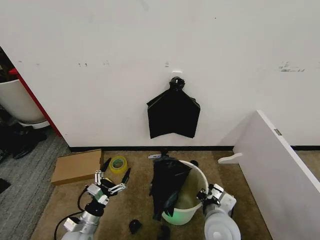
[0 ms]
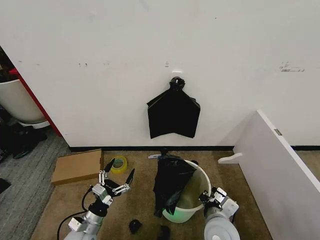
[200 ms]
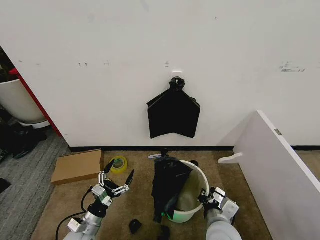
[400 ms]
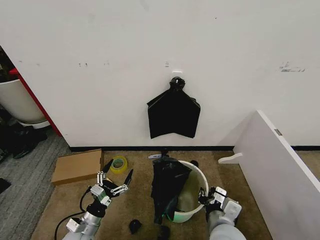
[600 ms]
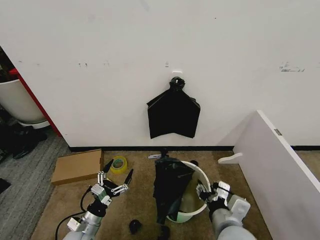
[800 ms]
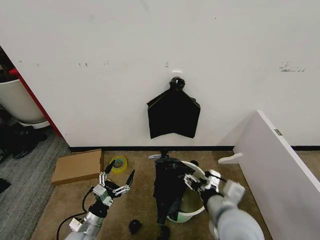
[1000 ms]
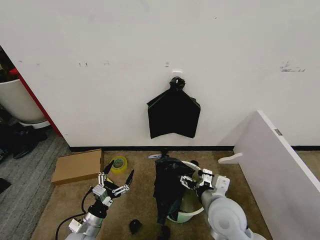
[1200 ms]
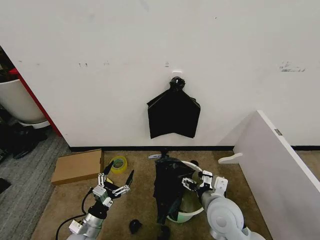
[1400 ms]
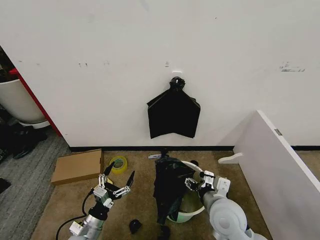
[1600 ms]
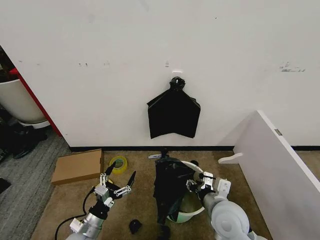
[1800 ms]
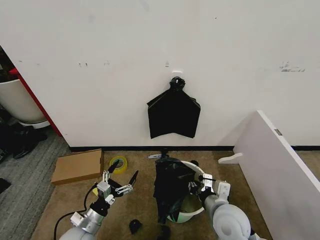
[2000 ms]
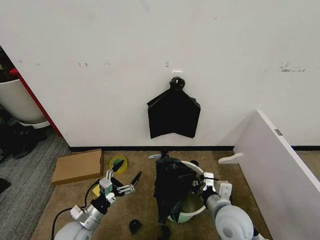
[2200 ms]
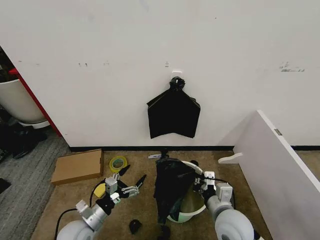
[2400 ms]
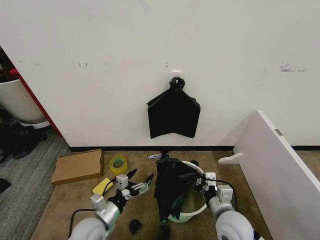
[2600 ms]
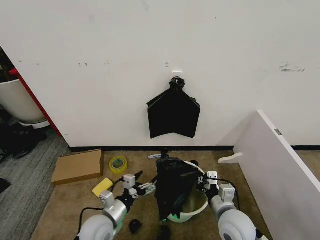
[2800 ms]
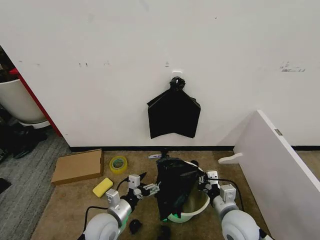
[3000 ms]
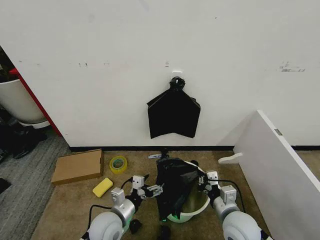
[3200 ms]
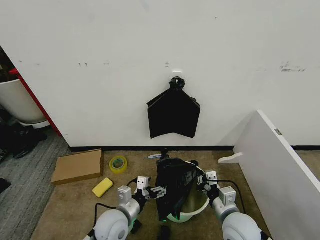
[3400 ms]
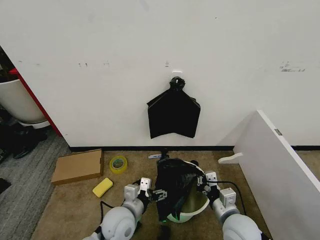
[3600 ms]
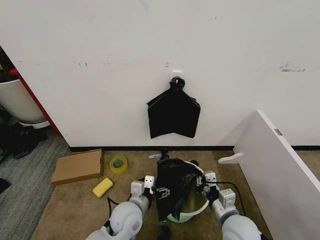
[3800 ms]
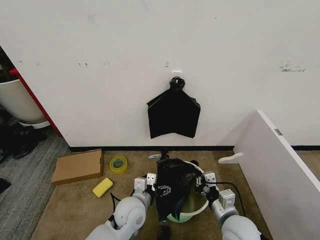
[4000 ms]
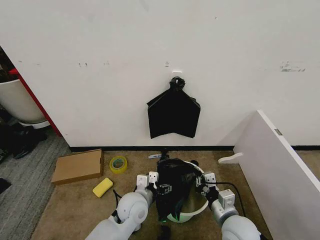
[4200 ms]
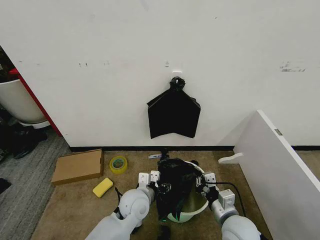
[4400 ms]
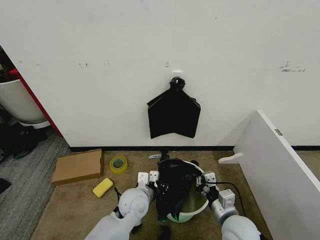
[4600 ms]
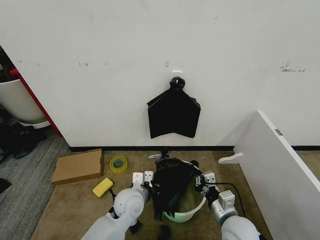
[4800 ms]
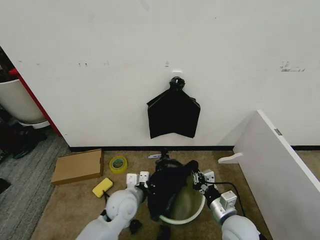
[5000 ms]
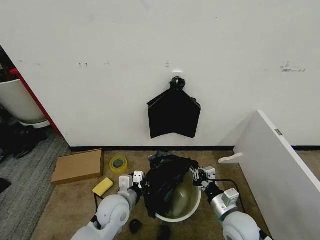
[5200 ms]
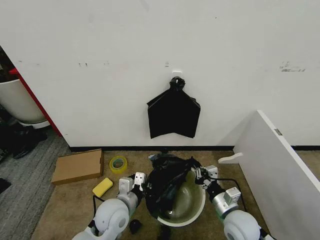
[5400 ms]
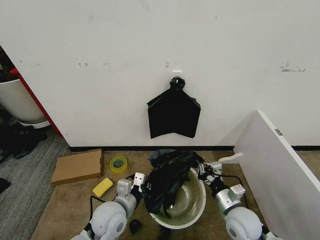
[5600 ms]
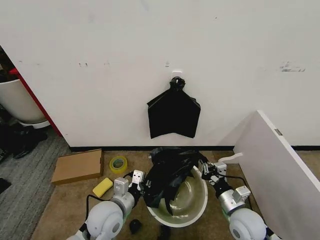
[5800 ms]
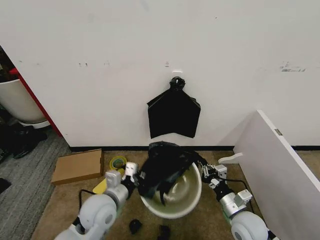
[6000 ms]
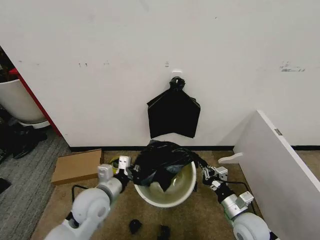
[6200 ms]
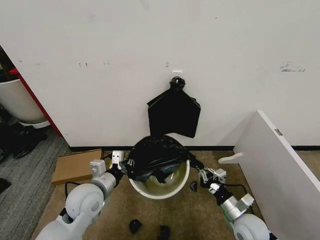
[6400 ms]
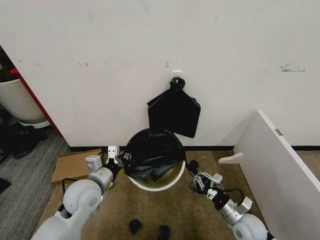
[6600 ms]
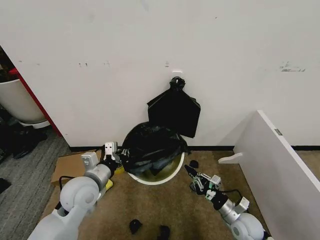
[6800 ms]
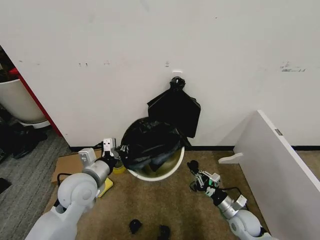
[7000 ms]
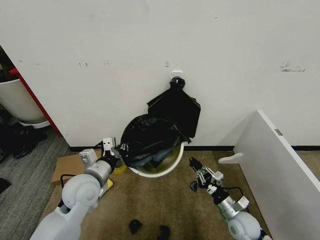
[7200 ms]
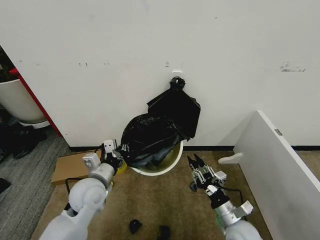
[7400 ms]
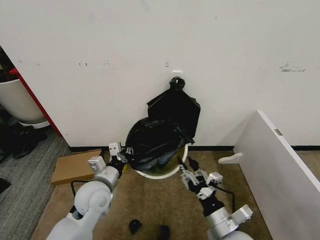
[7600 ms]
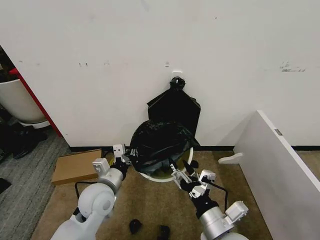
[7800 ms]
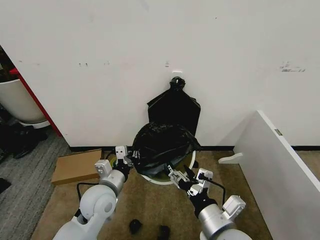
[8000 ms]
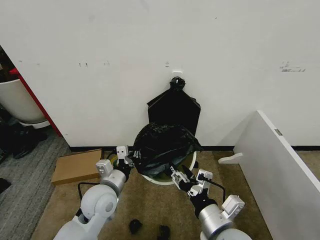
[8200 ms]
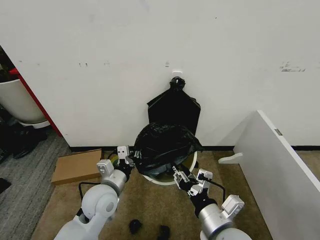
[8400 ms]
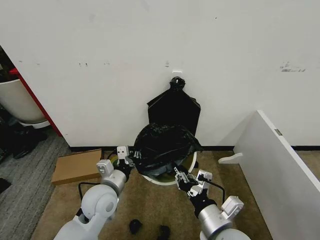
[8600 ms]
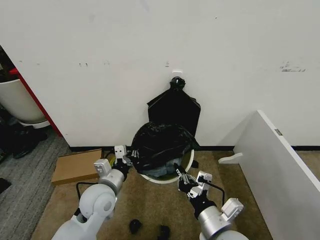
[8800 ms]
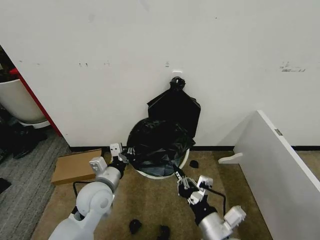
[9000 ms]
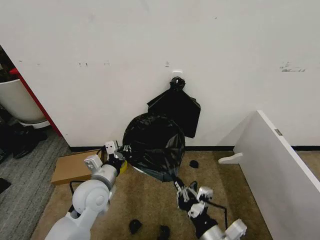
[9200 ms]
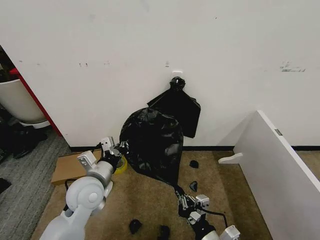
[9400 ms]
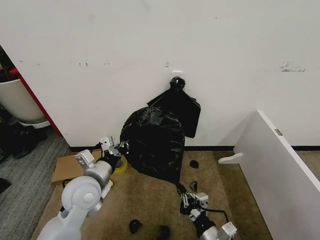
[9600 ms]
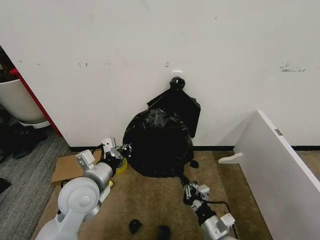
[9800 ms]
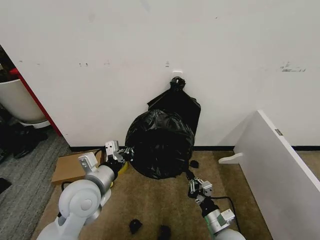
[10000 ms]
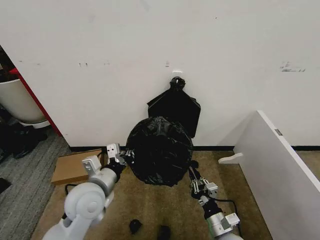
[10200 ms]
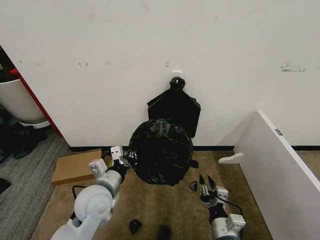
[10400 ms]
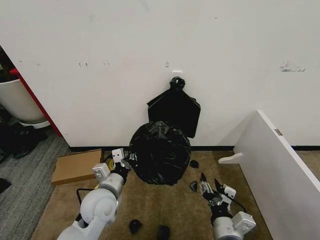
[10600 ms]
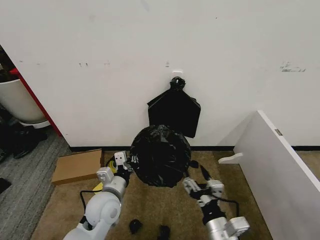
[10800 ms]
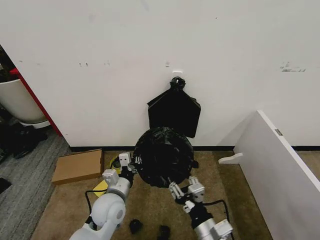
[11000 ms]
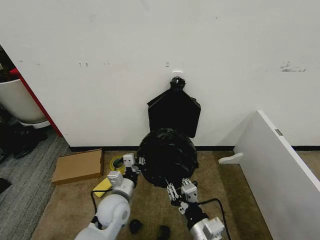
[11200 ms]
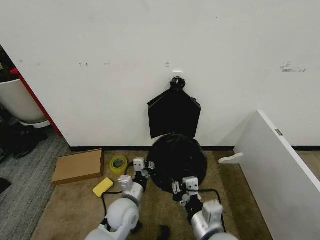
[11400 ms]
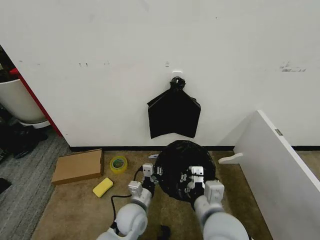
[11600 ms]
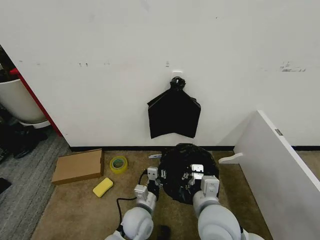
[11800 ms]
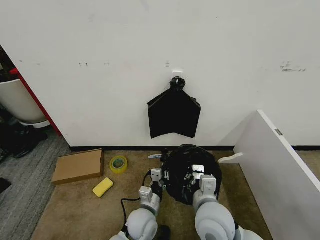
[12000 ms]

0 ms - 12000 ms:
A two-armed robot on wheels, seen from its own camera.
Task of the whole recording: Place the garbage bag over the trash bin.
0 ms - 1600 ms: The right gripper opens its fingers.
1600 ms - 3000 ms: The right gripper changes place by roughly 5 cm, and closes, while the left gripper heads to the right and upward, covering approximately 10 cm.
3000 ms - 4400 ms: The left gripper moves to the right and forward, approximately 10 cm, and closes its fingers.
4400 ms - 6000 ms: The left gripper moves to the left and upward, roughly 10 cm, and closes its fingers, while the right gripper changes place by approximately 5 cm.
6000 ms - 7600 ms: The left gripper moves approximately 5 cm; the right gripper travels downward and back again, about 10 cm each way, and opens.
7600 ms - 9000 ms: The right gripper goes approximately 15 cm upward, to the left and backward, and closes up.
9000 ms - 10400 ms: The right gripper heads downward, covering approximately 10 cm.
10400 ms - 12000 ms: The left gripper is displaced downward and to the right by about 20 cm, while the right gripper is displaced upward, to the left and forward by about 15 cm, and opens and closes again.

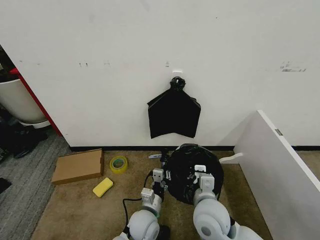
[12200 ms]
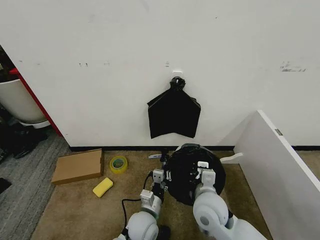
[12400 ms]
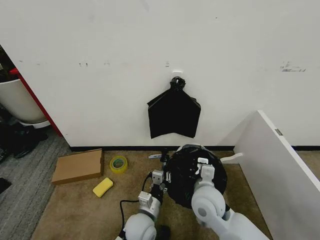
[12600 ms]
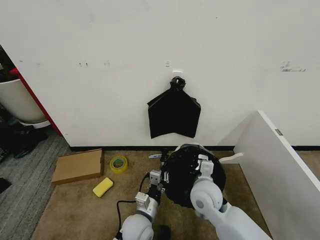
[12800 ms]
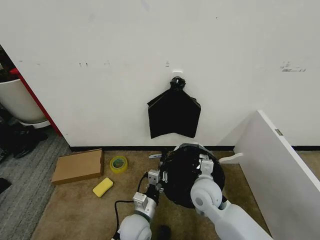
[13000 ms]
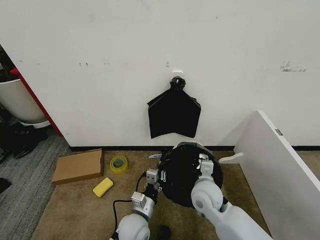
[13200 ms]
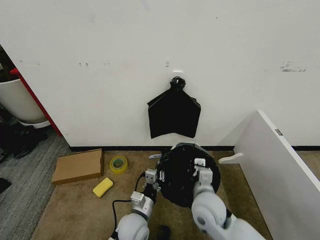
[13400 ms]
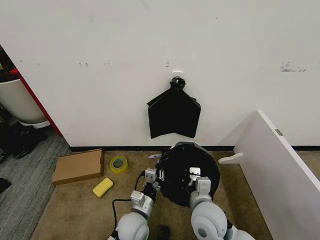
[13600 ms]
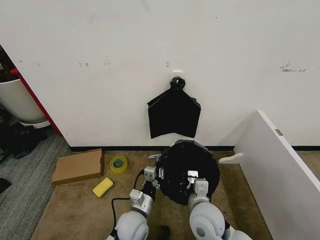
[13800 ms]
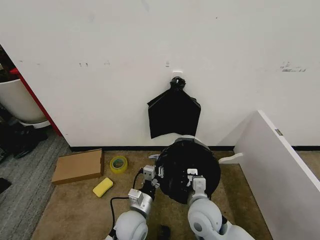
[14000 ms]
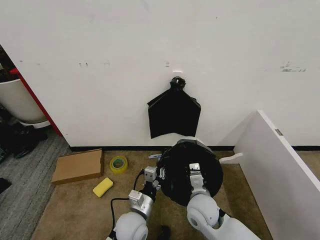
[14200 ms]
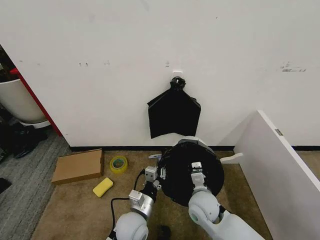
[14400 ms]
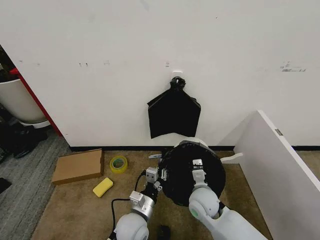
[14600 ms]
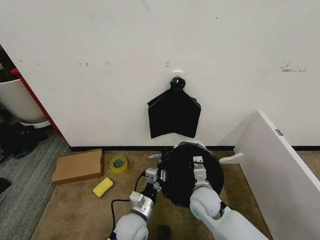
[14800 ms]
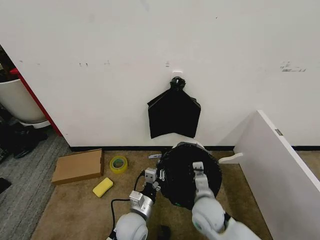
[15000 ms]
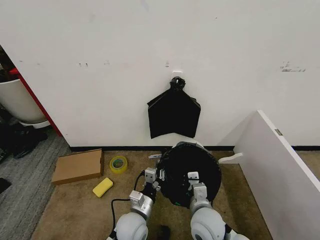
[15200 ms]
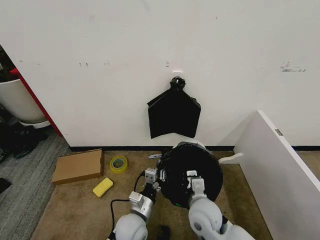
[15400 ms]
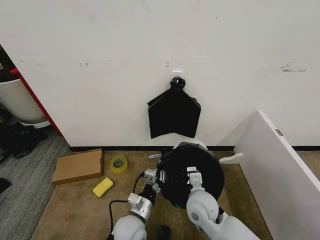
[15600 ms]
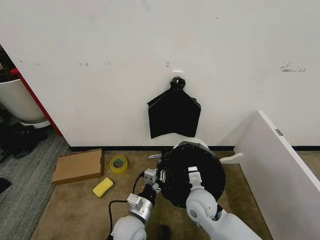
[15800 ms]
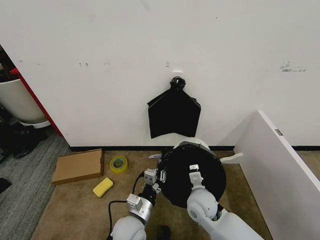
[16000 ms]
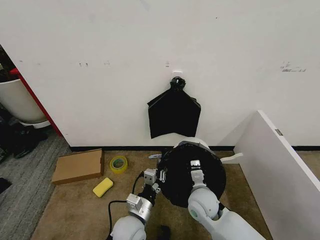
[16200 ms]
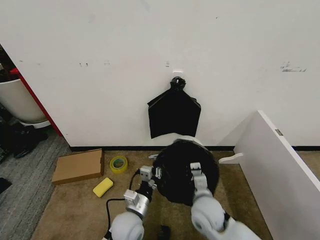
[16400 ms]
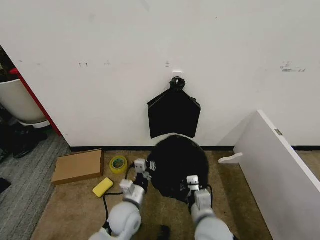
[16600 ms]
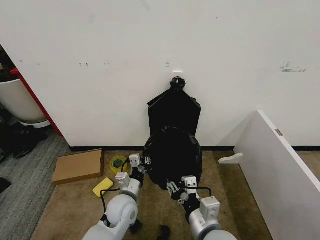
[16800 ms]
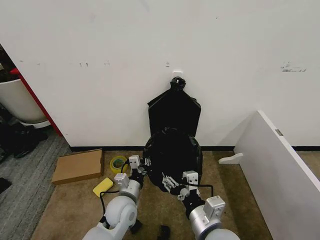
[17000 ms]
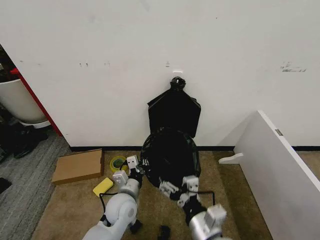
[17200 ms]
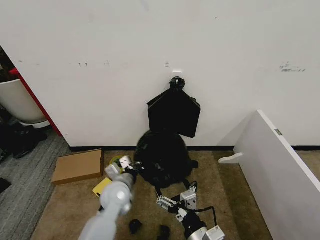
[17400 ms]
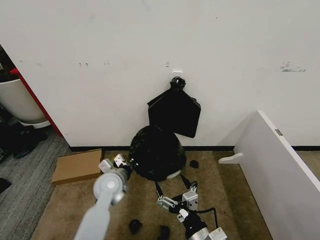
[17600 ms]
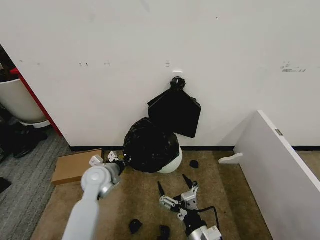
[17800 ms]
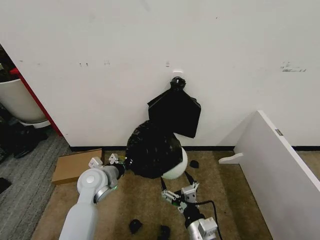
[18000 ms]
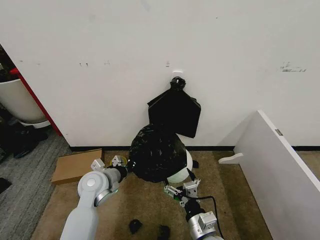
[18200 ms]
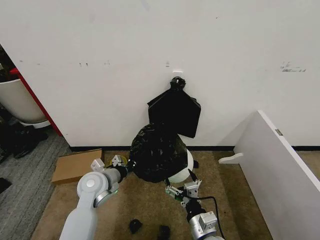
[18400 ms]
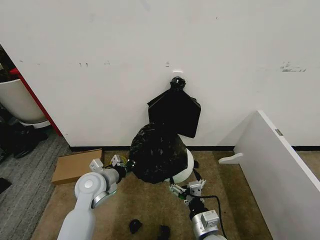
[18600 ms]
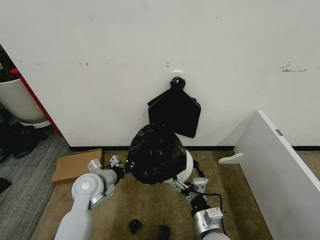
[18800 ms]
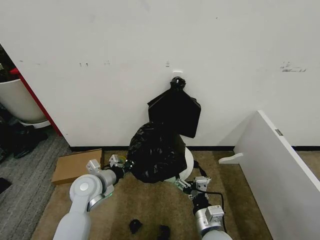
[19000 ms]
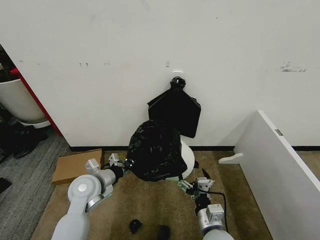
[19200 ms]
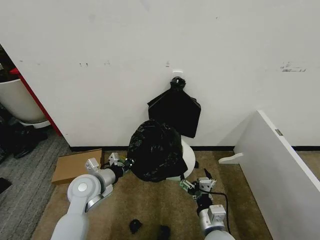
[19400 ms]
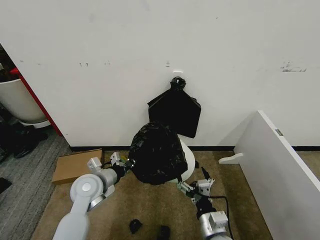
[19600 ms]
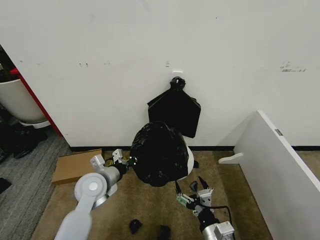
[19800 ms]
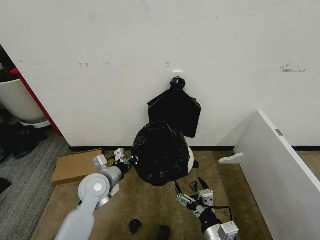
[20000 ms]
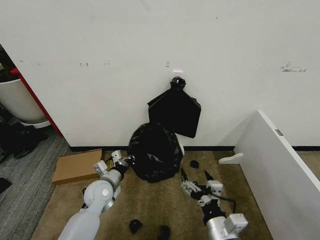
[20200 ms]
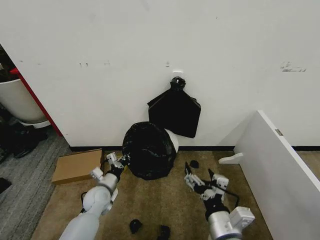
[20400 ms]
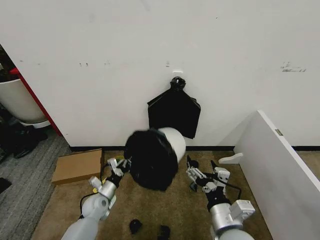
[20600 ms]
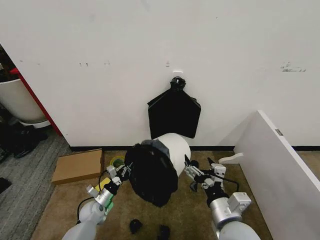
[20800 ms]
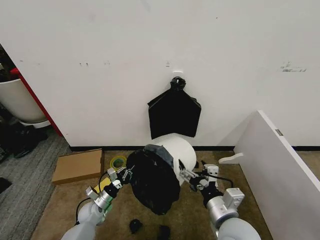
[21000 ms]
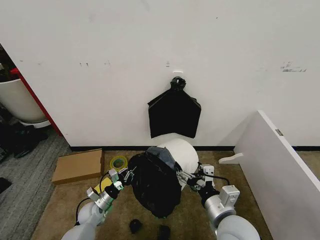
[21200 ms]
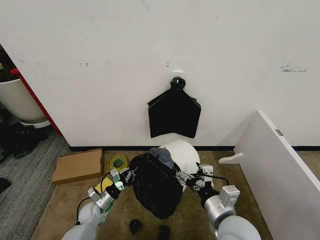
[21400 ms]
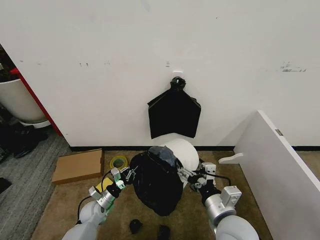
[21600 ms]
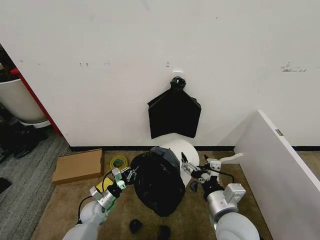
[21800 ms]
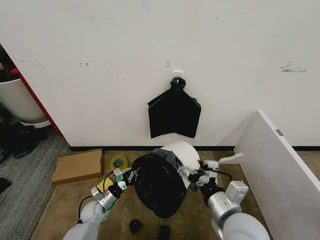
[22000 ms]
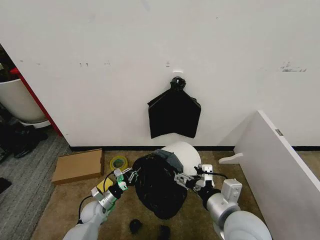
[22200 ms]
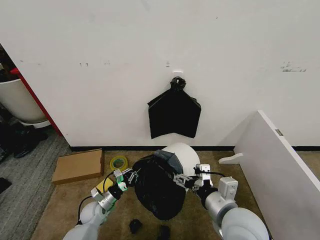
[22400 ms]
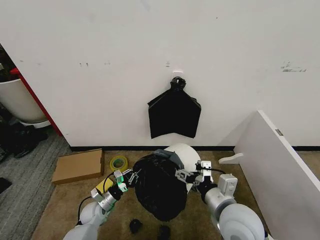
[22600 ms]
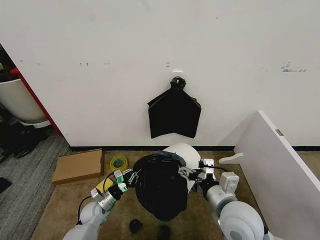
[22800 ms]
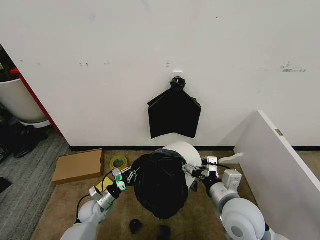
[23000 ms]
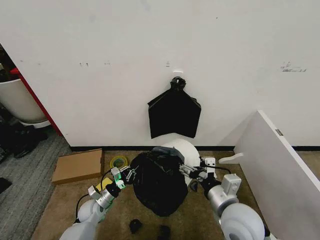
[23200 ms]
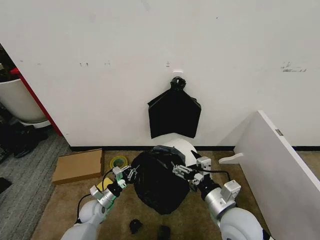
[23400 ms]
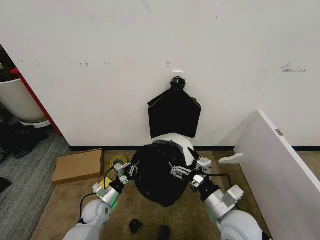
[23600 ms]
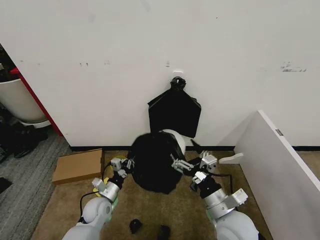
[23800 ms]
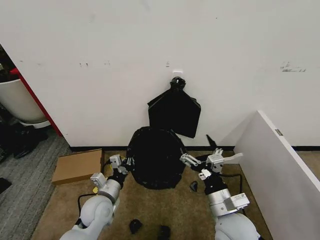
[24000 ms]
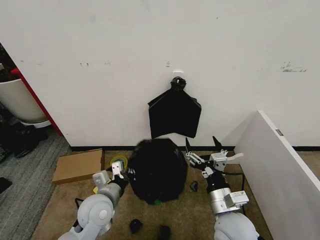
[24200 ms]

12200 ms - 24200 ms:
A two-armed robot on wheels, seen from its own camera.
Task of the whole recording: Place the garbage bag over the trash bin.
15200 ms - 16600 ms: The right gripper moves some 5 cm.
16600 ms - 18200 ms: The right gripper travels downward by approximately 5 cm, and opens up. The left gripper goes approximately 15 cm to the left, forward and upward.
18200 ms - 19800 ms: There are only small adjustments of the grippers.
19800 ms - 21200 ms: The right gripper heads upward and forward, covering roughly 10 cm, while the left gripper shifts approximately 20 cm downward.
21200 ms - 22600 ms: The grippers move only a little.
22600 ms - 24200 ms: The left gripper is displaced upward and to the right by some 25 cm.
